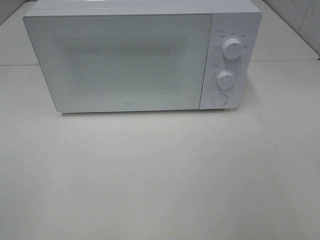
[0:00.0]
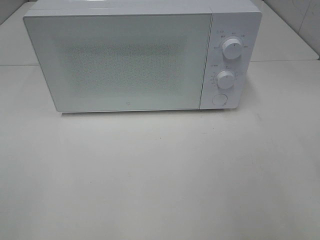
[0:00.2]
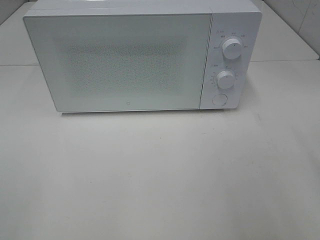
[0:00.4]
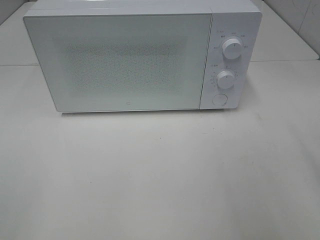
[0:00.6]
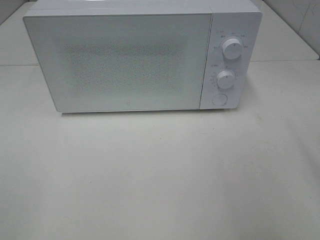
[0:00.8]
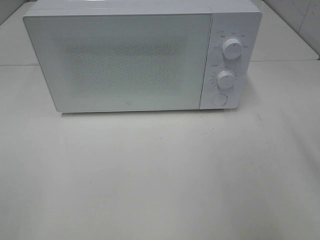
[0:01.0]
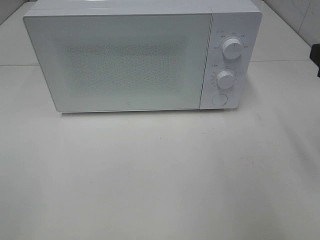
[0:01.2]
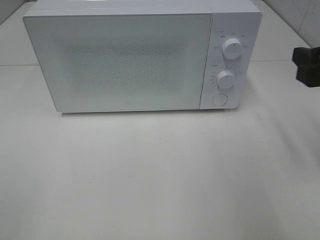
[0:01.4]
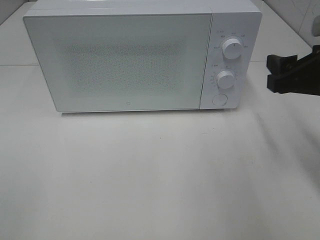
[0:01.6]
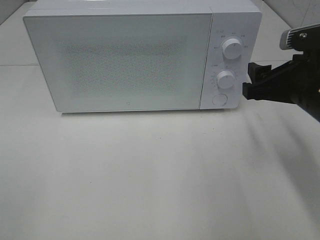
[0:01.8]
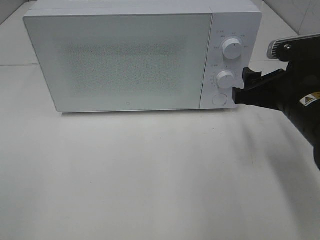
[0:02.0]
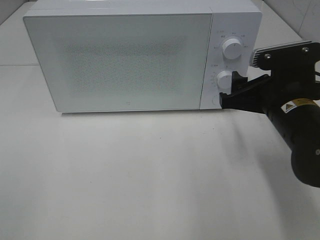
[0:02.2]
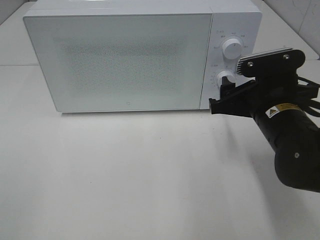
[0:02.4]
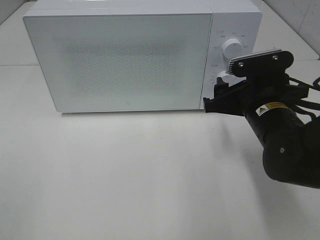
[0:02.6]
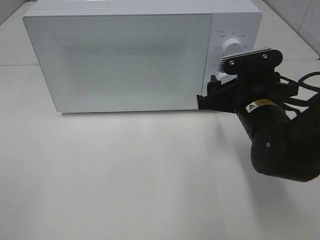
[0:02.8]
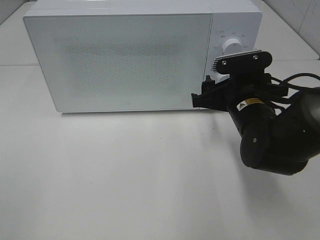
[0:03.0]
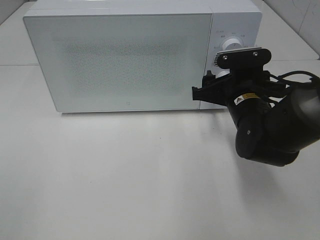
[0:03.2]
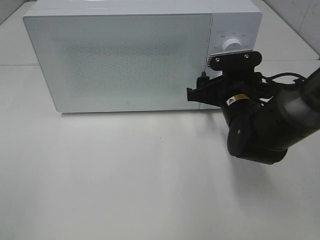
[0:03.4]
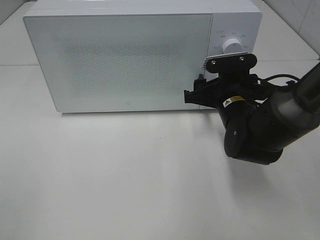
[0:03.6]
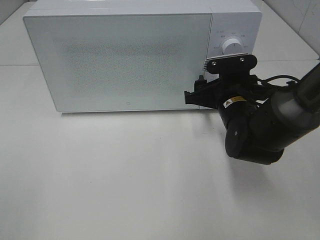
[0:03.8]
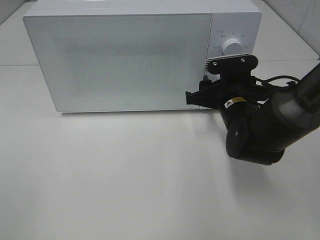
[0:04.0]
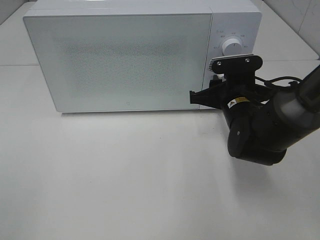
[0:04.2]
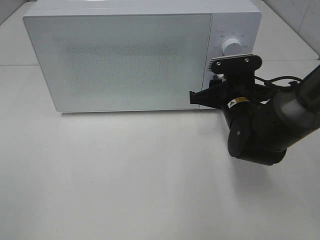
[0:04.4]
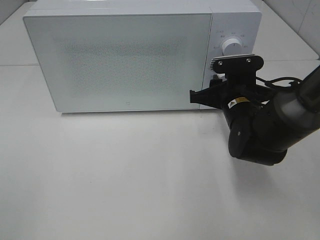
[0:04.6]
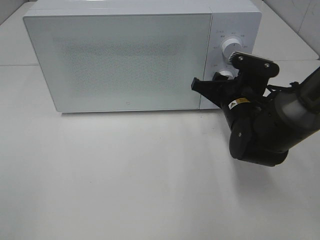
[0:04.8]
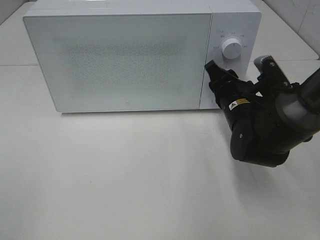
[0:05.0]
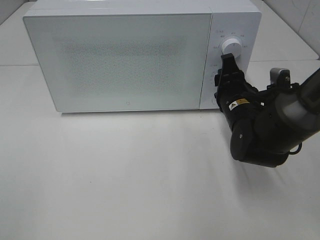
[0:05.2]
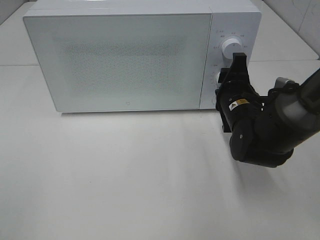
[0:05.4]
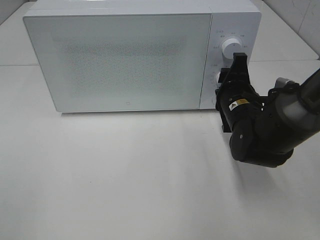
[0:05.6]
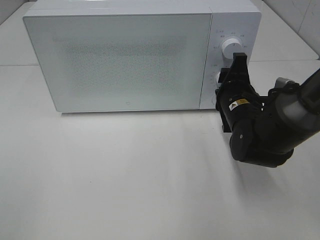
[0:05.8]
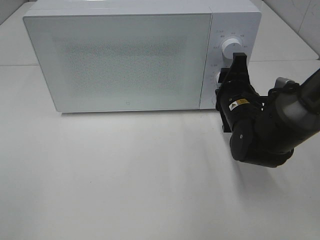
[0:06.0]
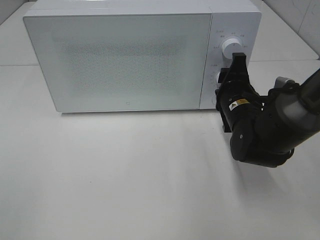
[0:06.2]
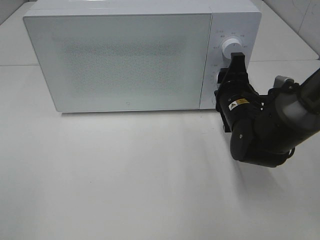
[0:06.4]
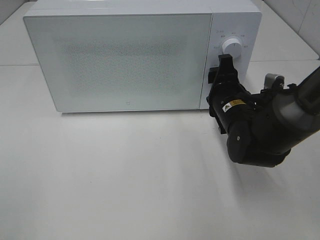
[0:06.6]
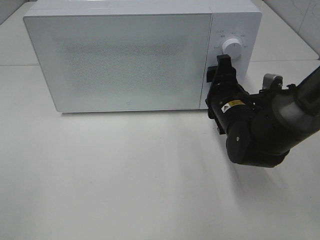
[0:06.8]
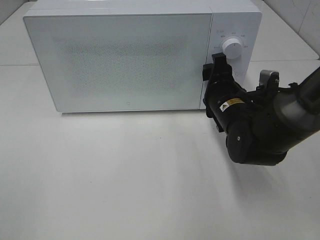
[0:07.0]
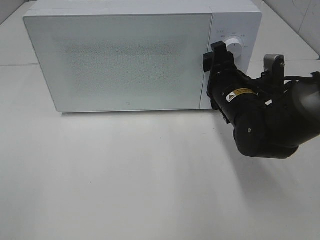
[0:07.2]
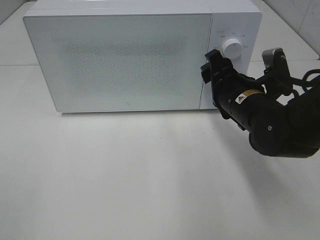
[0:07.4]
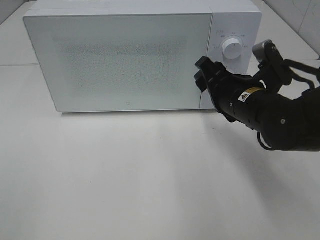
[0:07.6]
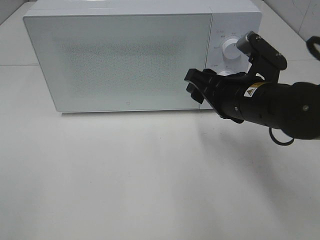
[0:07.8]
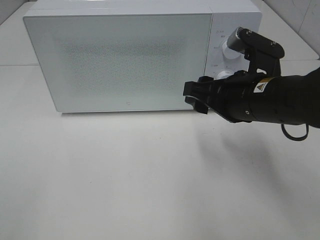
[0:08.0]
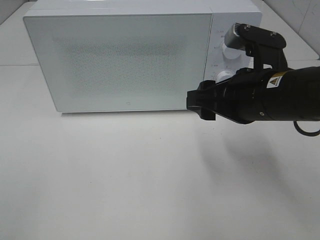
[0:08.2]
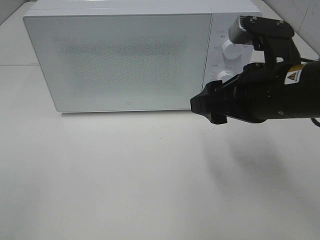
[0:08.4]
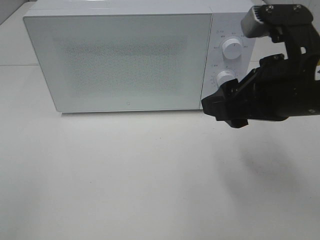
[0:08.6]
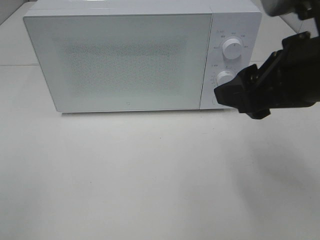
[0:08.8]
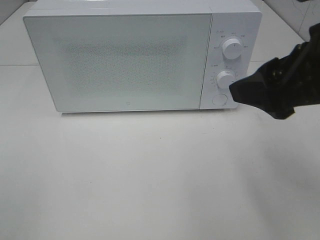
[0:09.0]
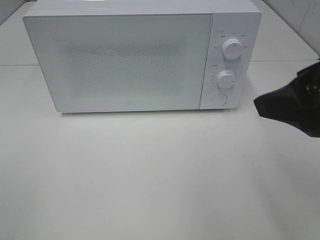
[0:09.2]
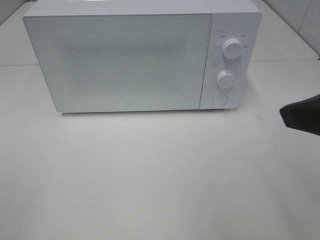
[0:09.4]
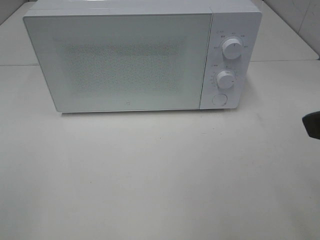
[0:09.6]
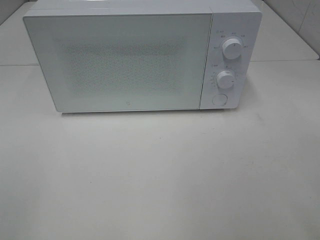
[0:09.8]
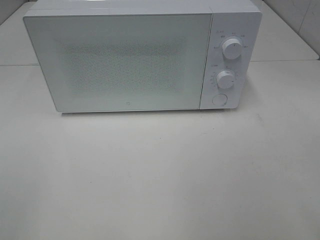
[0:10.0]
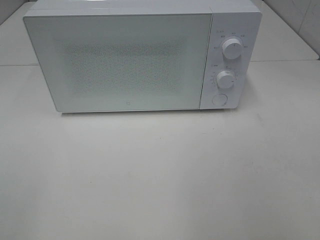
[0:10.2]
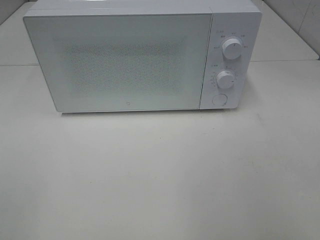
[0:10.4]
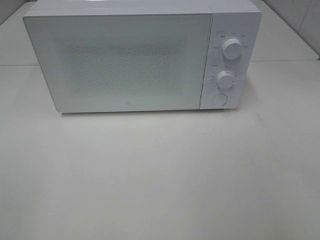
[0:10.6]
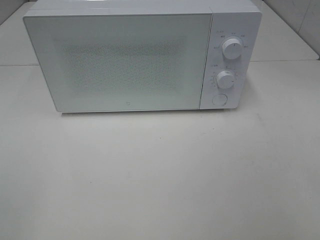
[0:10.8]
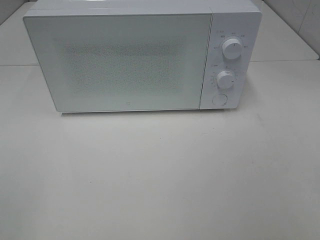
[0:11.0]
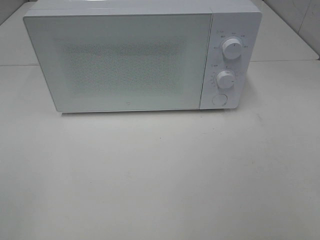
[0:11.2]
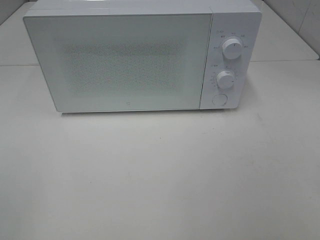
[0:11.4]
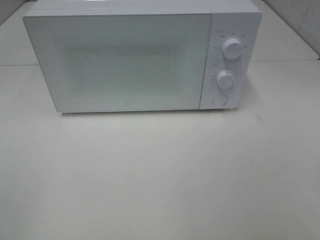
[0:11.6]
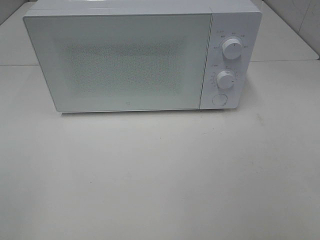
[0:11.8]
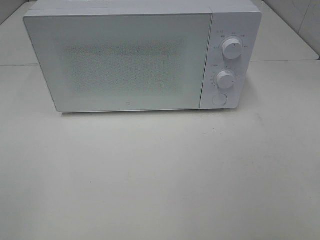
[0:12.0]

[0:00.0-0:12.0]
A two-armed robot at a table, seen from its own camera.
Task of the whole recording: Heat the burger.
Step, 0:00.0 to 0:06.4: Right hand: twist timer button.
0:00.0 to 0:01.6: The right gripper heads forward and downward, covering approximately 20 cm.
0:01.6 to 0:03.0: The right gripper travels to the left, downward and forward by some 15 cm.
0:03.0 to 0:04.4: The right gripper closes its fingers.
0:06.0 to 0:07.6: The right gripper changes place by roughly 5 cm.
0:07.6 to 0:09.0: The right gripper shifts approximately 20 cm upward and backward.
0:09.0 to 0:10.4: The right gripper goes some 15 cm backward and to the right.

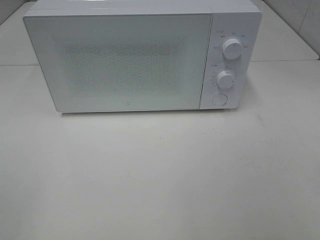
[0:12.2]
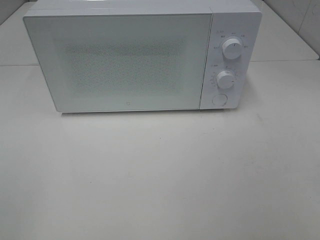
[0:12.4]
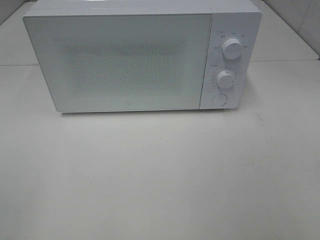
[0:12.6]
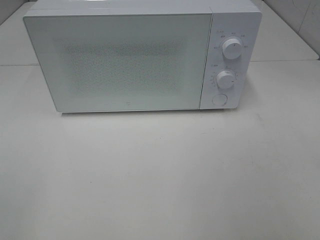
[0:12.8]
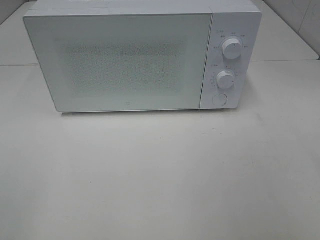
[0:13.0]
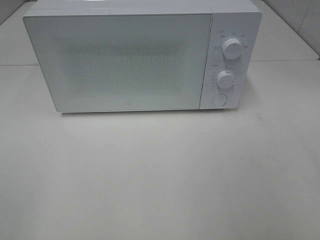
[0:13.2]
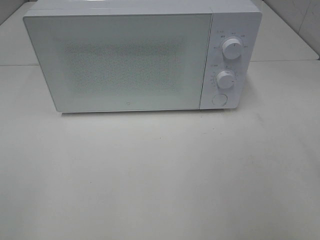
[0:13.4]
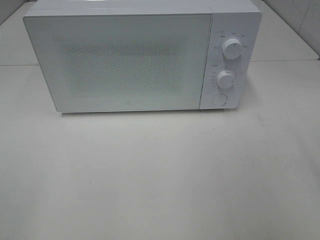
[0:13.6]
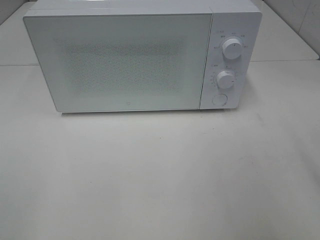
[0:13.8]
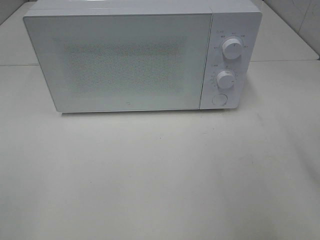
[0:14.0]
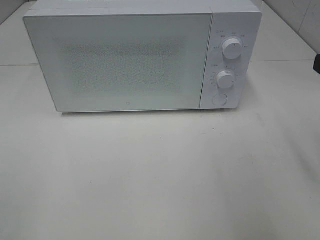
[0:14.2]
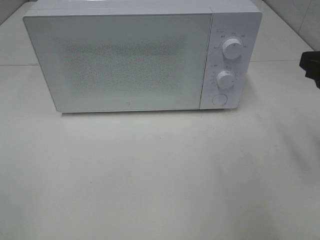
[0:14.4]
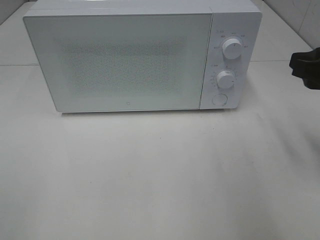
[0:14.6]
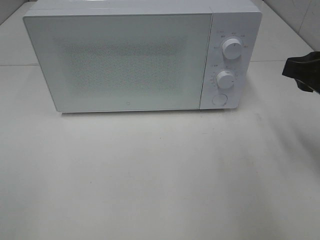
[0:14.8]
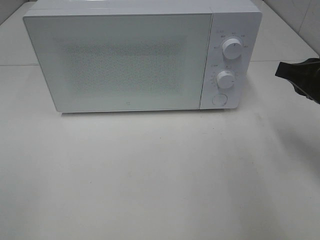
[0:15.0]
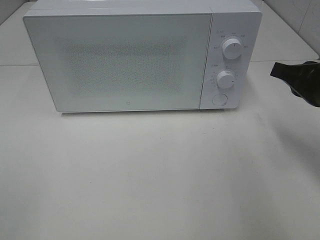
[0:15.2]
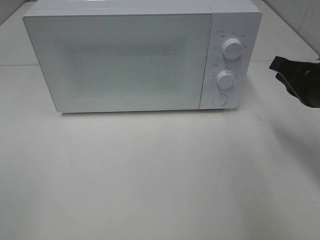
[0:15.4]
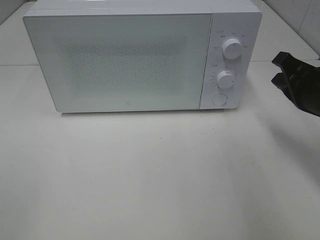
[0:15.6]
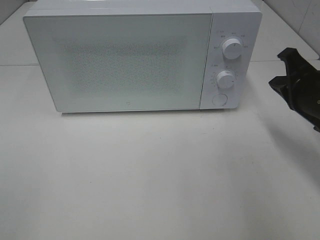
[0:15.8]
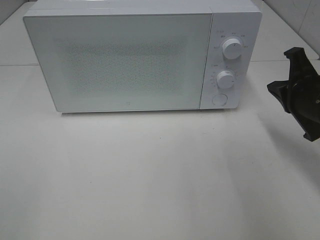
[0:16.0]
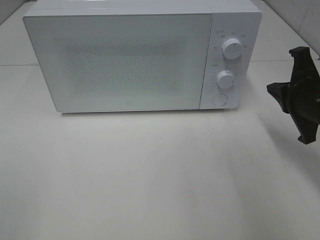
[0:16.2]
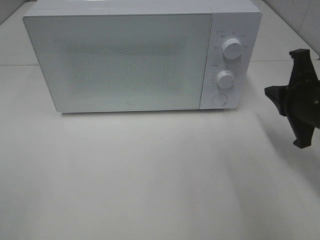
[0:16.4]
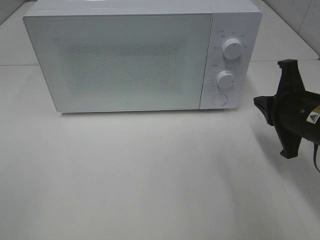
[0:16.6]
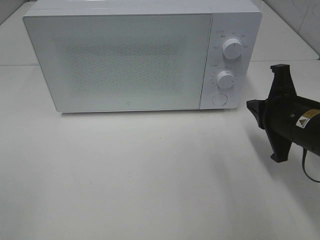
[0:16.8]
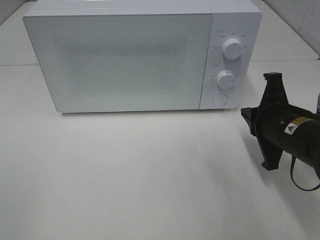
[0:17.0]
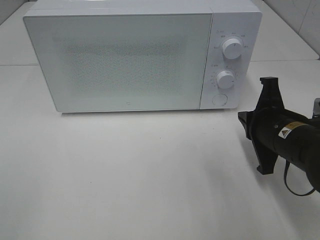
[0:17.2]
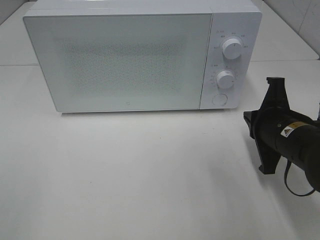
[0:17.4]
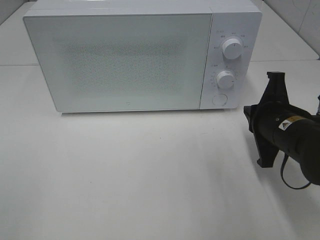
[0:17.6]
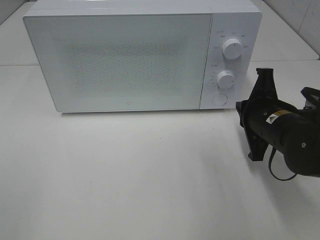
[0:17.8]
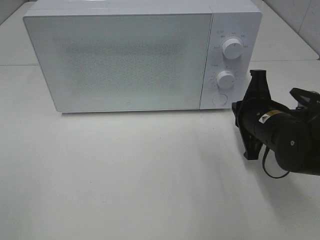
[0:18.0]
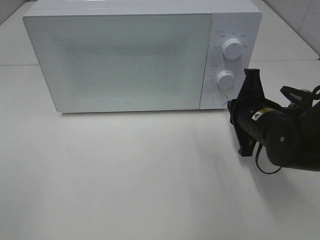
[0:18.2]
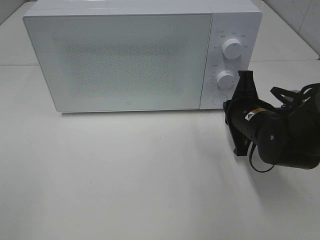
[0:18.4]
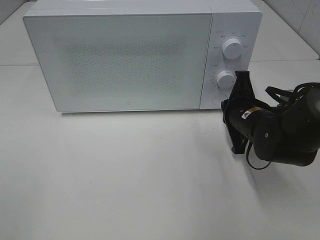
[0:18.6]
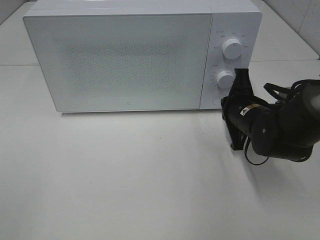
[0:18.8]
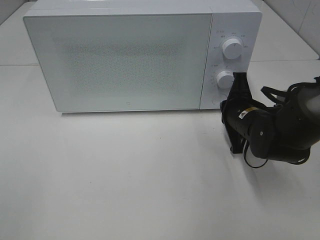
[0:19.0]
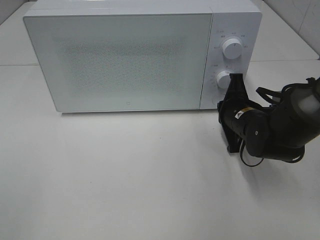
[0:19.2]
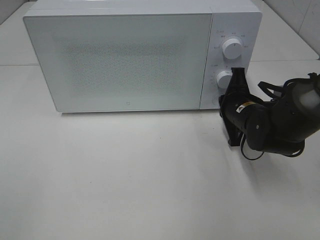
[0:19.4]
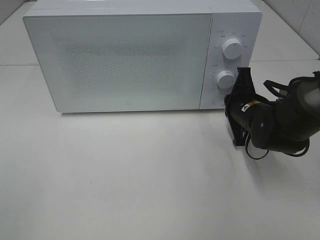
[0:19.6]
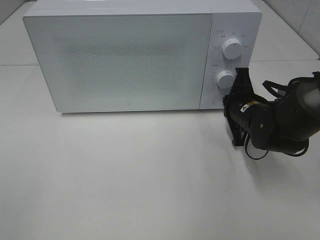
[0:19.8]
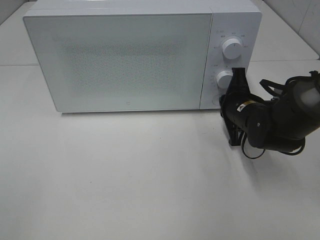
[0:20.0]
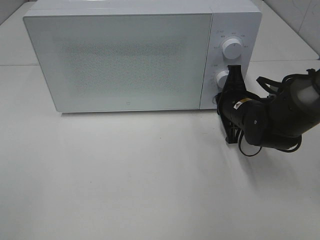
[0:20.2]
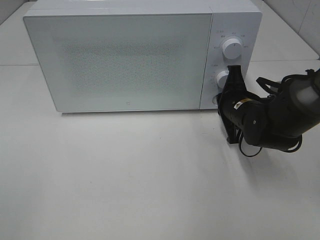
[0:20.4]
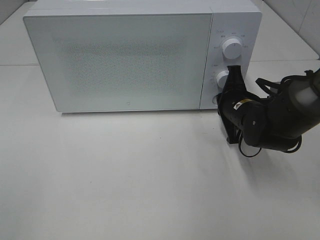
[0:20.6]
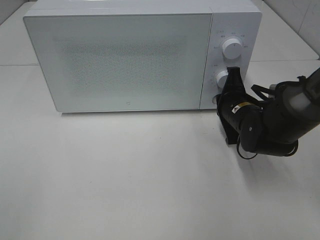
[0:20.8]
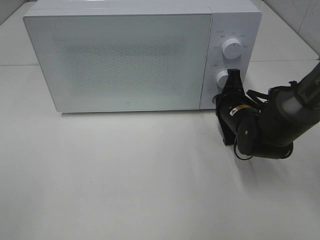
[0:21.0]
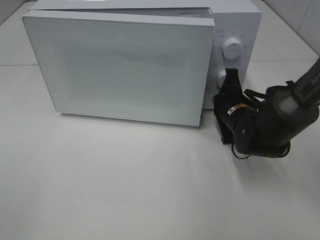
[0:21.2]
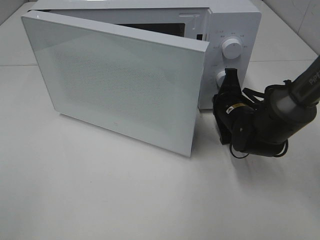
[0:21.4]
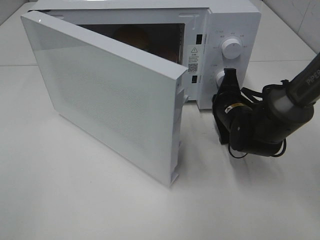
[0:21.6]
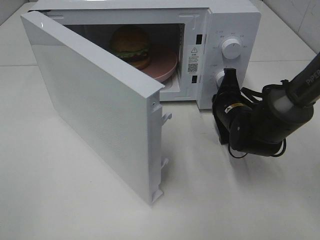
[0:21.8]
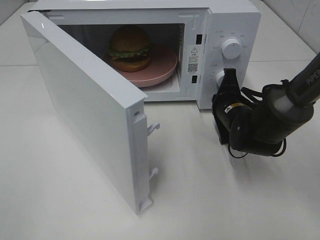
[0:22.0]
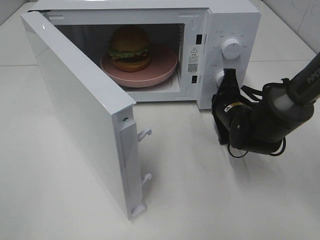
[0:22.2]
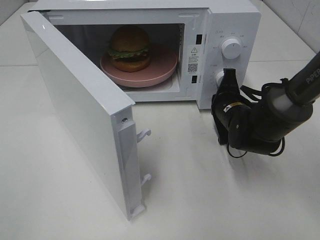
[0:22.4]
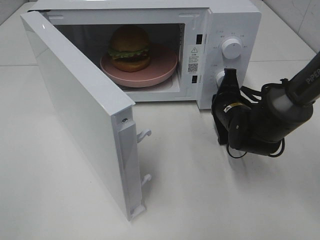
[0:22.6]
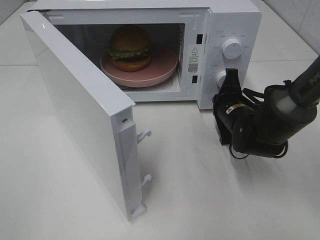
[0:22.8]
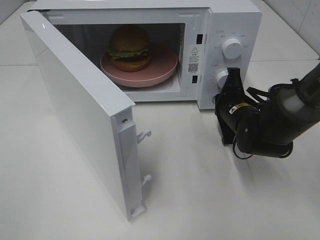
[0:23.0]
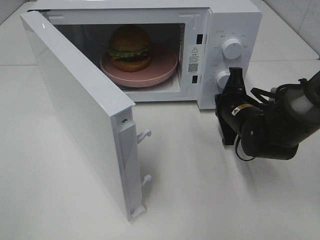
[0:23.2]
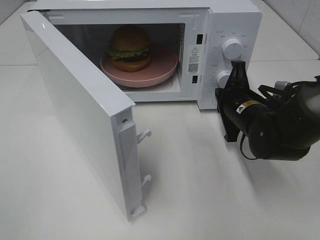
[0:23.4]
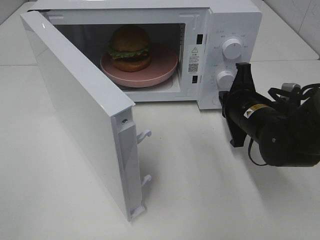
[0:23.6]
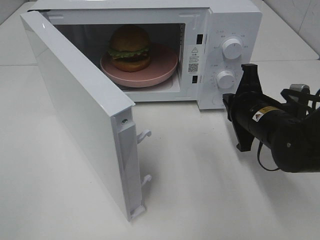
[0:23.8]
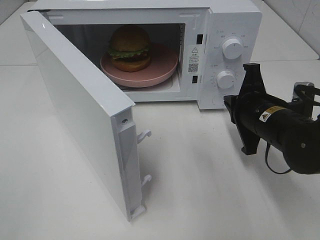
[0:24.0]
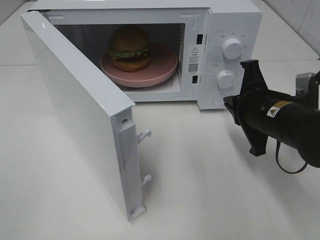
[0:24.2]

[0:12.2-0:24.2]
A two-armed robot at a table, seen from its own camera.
Task of the whole recording: Heat the burger.
Step, 0:12.2 to 0:23.2: Right hand: press the switch.
0:13.8 to 0:15.2: The right gripper goes approximately 15 cm forward and downward, and closes its fingers.
0:15.2 to 0:16.6: The right gripper travels downward by approximately 5 cm.
0:16.6 to 0:18.2: The right gripper shifts roughly 5 cm to the left.
0:18.2 to 0:19.8: The right gripper moves approximately 5 cm.
0:19.8 to 0:21.2: There are only small adjustments of the grippers.
0:22.6 to 0:24.2: The right gripper moves backward and upward, roughly 10 cm.
